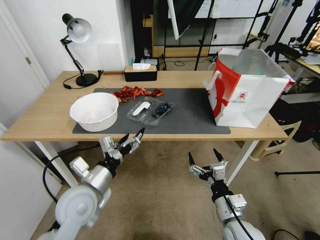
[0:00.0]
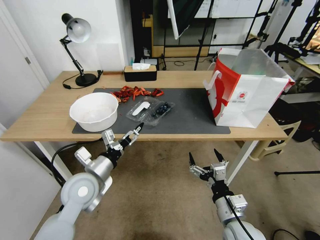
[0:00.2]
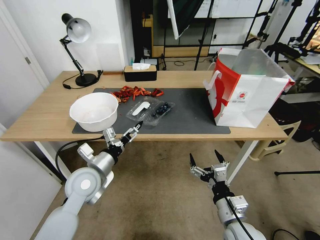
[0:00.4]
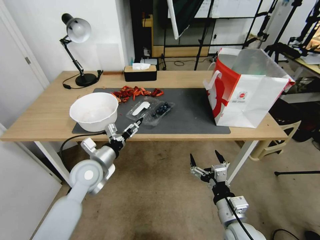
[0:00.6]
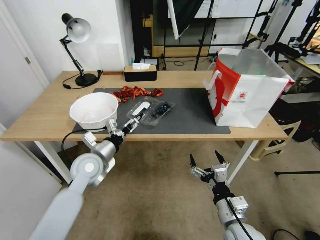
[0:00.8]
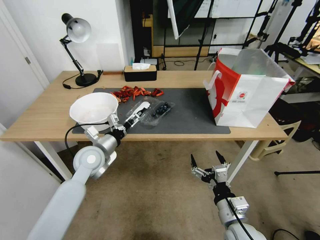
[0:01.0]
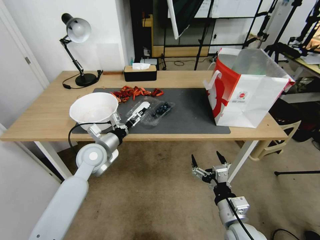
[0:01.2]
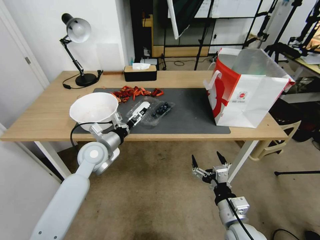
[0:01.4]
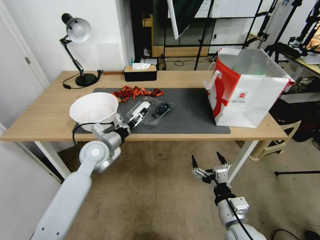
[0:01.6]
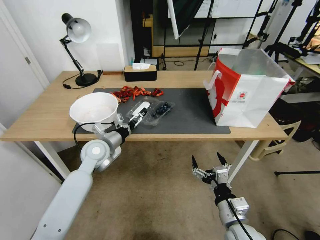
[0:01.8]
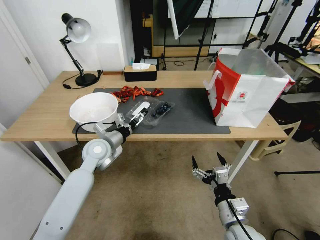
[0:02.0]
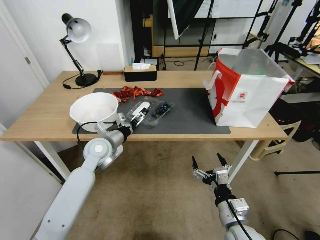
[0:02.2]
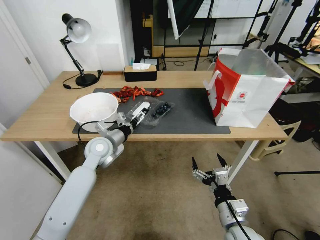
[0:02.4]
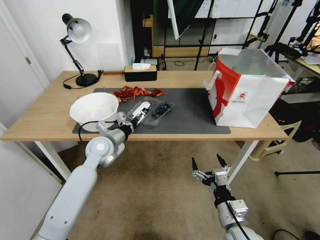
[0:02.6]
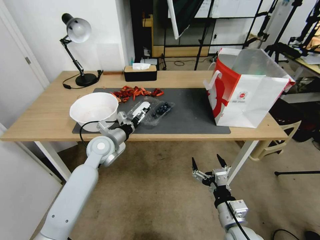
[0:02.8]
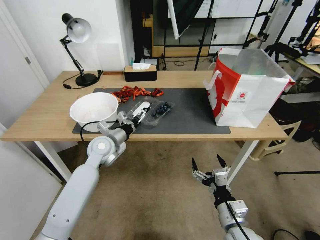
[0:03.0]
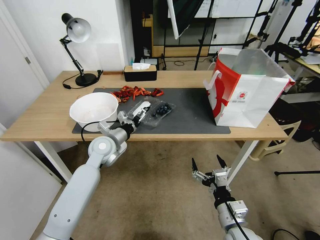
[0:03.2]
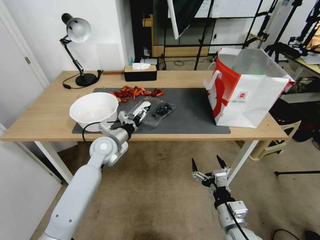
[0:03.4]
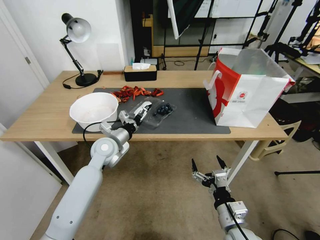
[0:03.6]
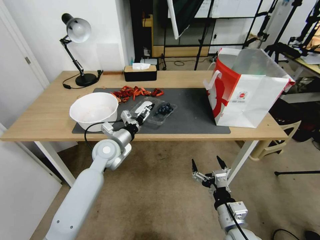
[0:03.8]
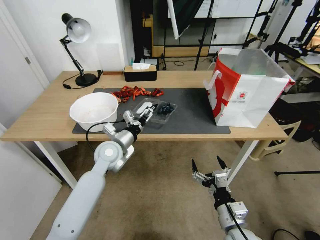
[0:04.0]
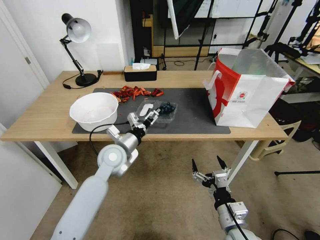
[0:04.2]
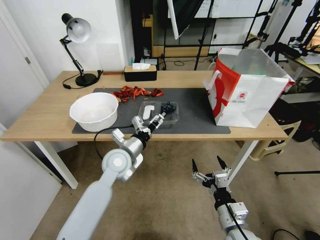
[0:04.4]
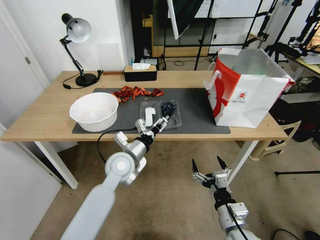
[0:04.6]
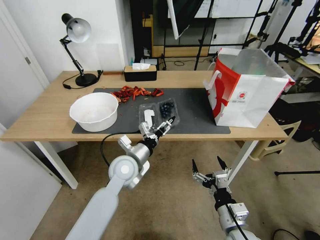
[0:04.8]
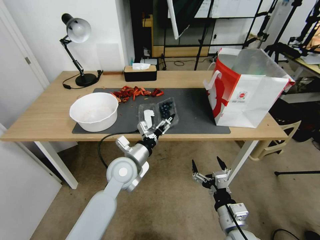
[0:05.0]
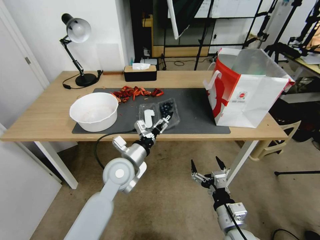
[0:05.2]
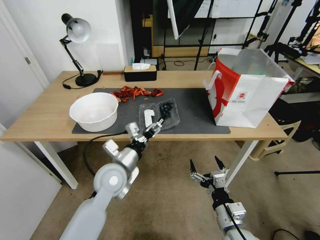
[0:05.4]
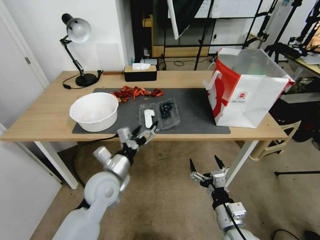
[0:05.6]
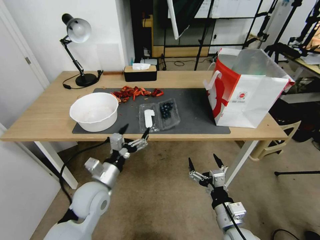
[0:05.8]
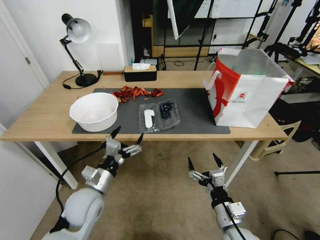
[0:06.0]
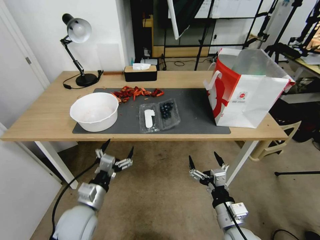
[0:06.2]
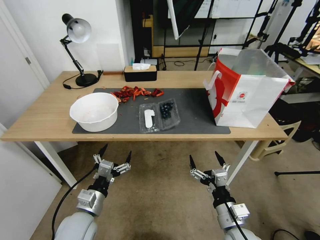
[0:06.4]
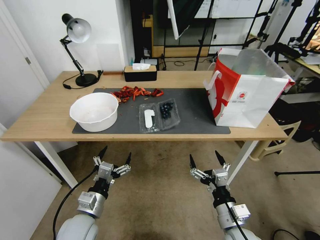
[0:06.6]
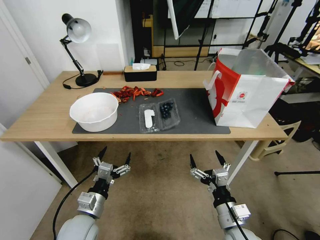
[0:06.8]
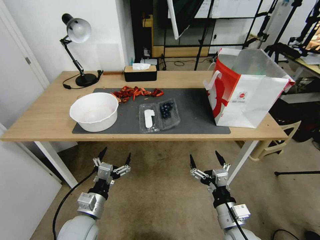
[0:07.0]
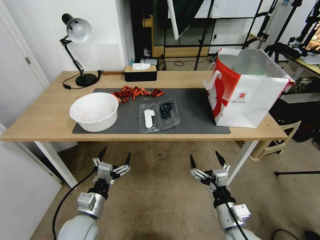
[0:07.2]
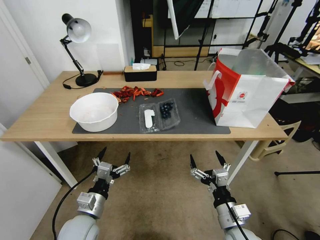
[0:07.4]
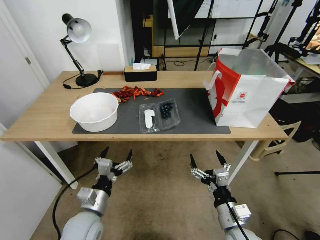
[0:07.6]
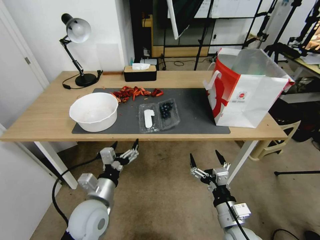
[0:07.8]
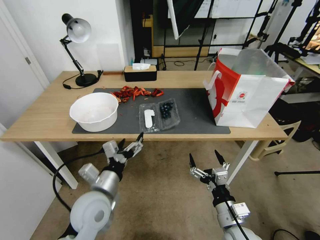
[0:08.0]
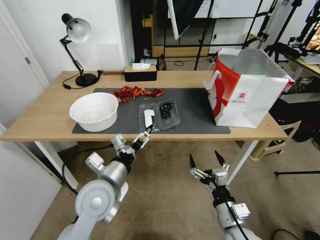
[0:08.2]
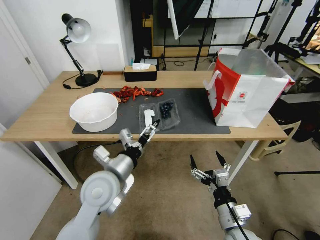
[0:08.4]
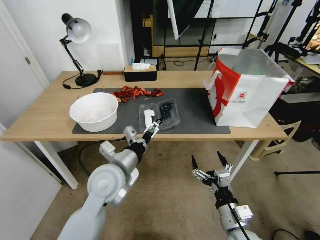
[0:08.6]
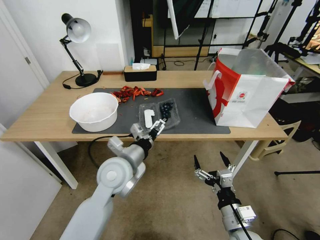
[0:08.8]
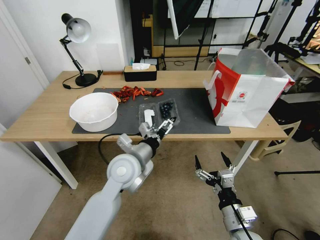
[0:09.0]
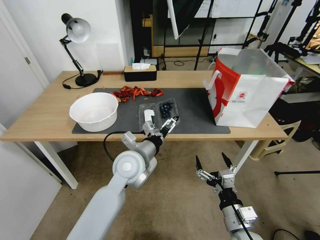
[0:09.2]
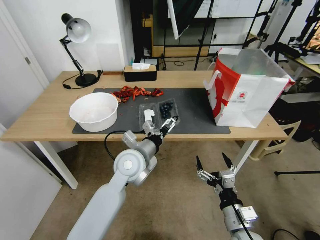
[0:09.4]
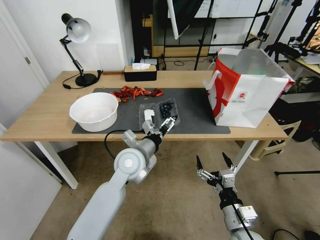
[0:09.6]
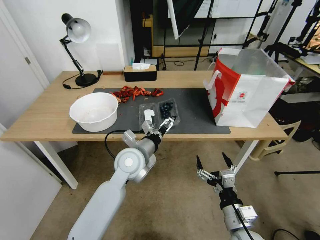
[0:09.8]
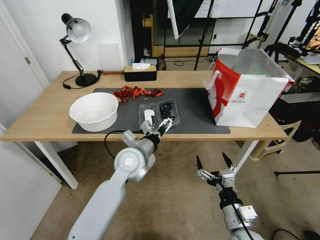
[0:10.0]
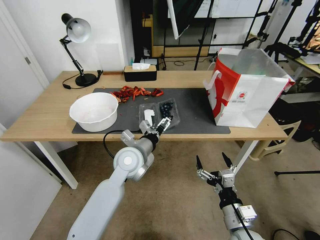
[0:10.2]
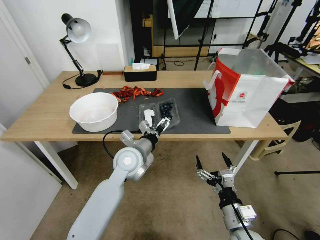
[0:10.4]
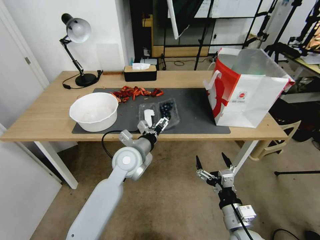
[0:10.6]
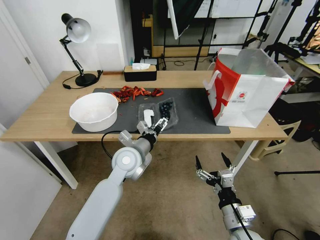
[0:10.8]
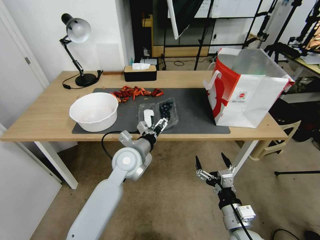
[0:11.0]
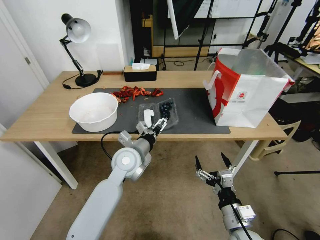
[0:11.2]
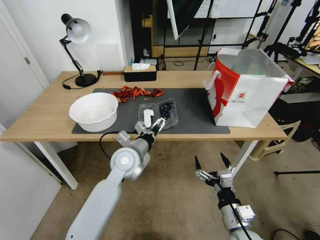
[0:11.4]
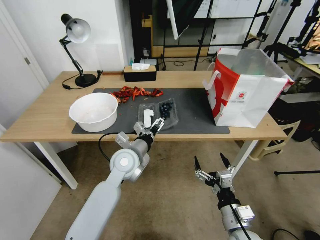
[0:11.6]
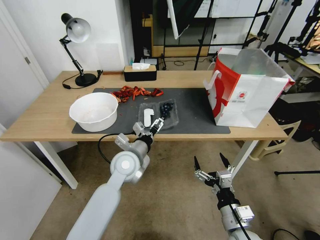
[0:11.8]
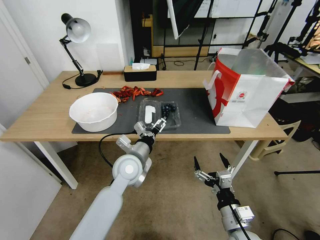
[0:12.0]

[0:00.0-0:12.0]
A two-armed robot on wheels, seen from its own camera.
Task of the whole recording: Close the takeout container lid, then place the container into the takeout bag.
0:00.0 to 0:01.6: The left gripper goes some 15 cm forward.
0:01.6 to 0:03.0: There are only small adjustments of the grippers.
0:03.0 to 0:04.4: The left gripper goes roughly 10 cm to the right and backward.
0:04.4 to 0:06.0: The left gripper is displaced backward and to the left by some 15 cm.
0:06.0 to 0:07.6: The left gripper changes place by approximately 5 cm.
0:07.6 to 0:09.0: The left gripper is displaced upward, forward and to the right by some 20 cm.
0:09.0 to 0:10.4: The left gripper moves some 5 cm.
0:10.4 to 0:12.0: There are only small adjustments of the grippers.

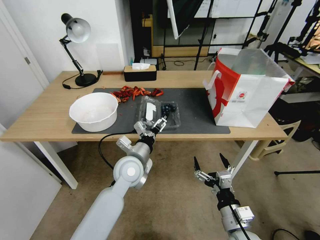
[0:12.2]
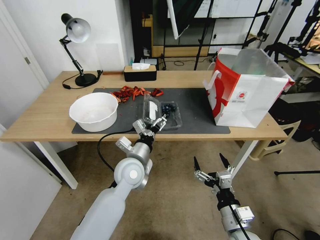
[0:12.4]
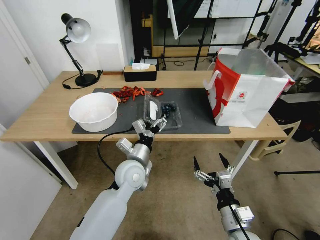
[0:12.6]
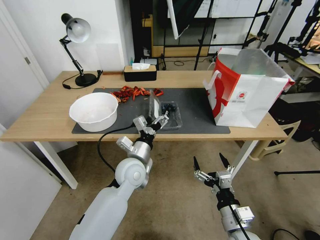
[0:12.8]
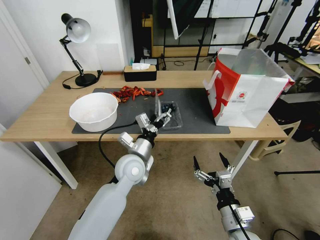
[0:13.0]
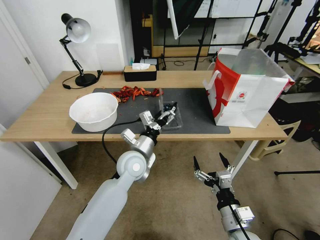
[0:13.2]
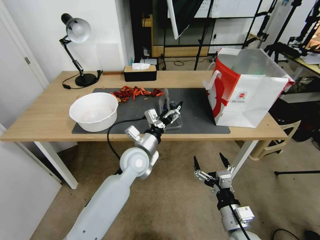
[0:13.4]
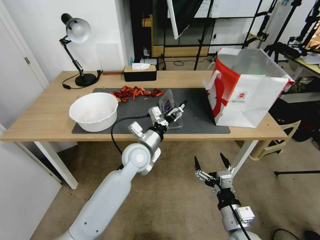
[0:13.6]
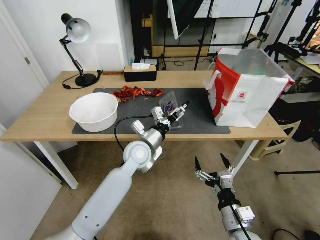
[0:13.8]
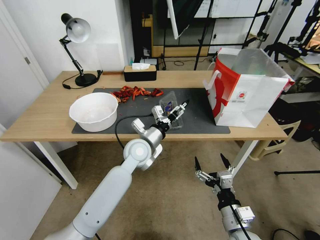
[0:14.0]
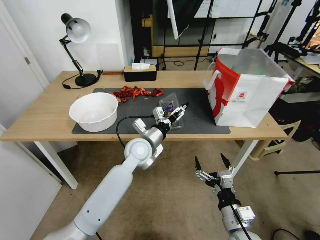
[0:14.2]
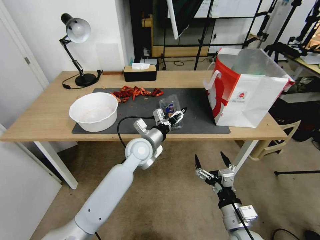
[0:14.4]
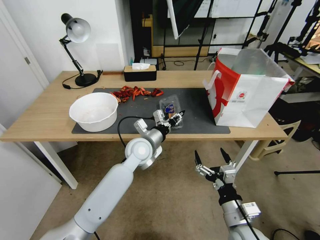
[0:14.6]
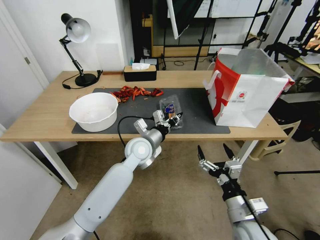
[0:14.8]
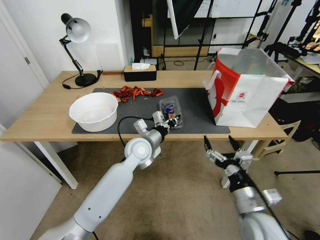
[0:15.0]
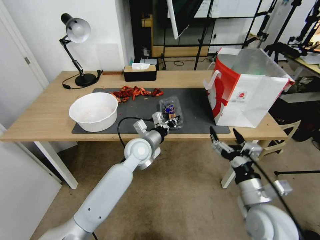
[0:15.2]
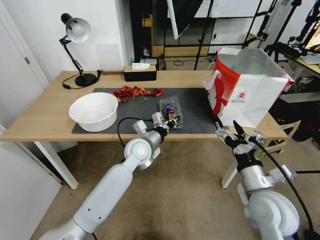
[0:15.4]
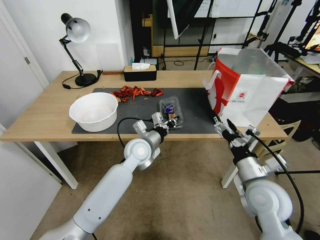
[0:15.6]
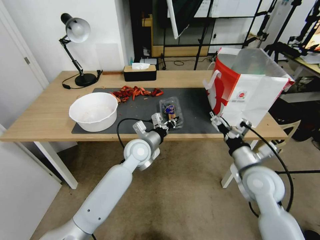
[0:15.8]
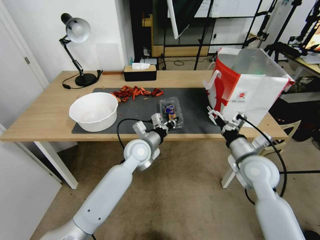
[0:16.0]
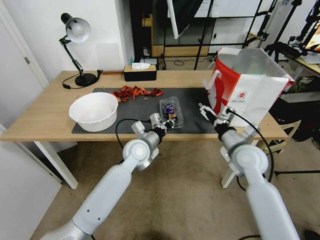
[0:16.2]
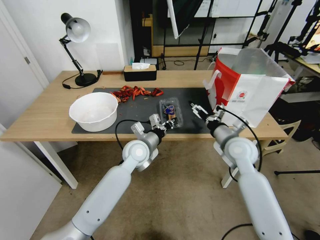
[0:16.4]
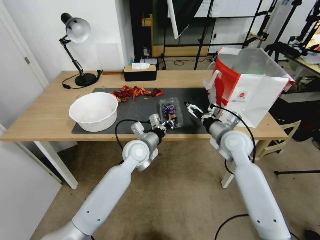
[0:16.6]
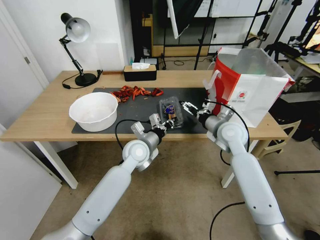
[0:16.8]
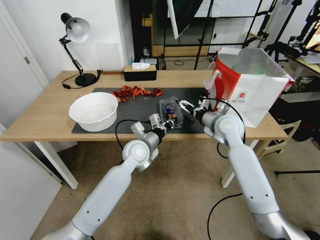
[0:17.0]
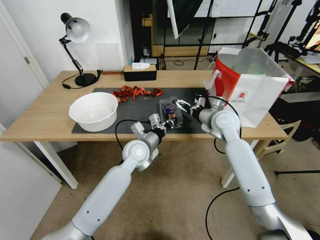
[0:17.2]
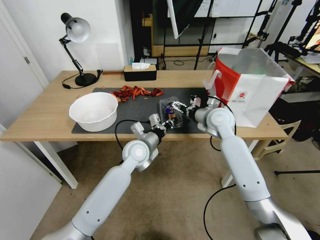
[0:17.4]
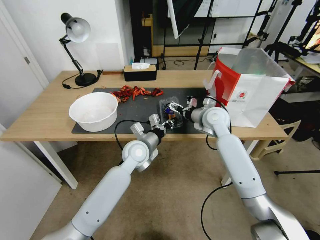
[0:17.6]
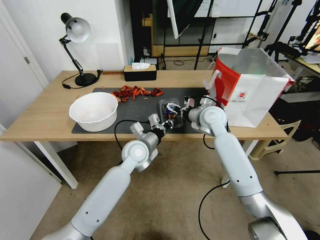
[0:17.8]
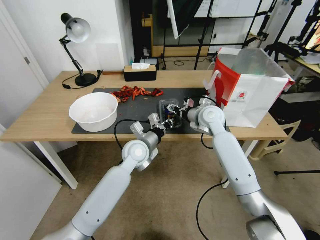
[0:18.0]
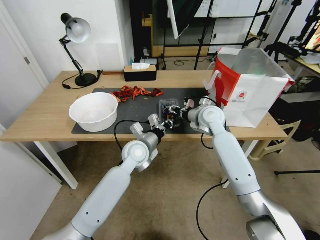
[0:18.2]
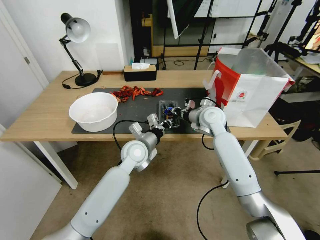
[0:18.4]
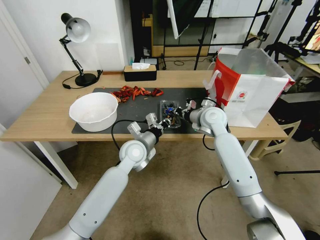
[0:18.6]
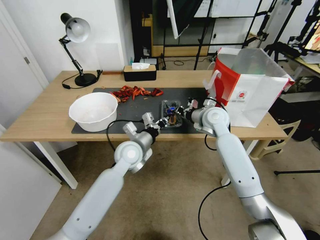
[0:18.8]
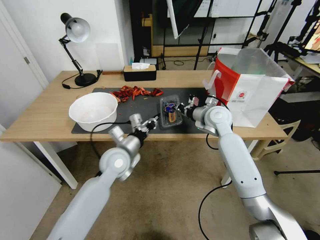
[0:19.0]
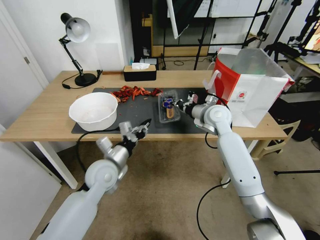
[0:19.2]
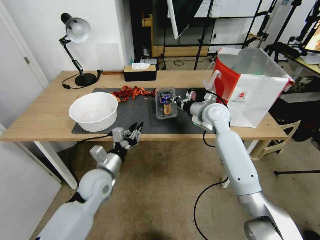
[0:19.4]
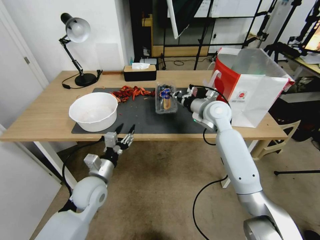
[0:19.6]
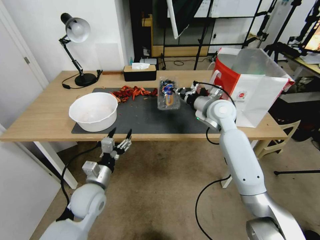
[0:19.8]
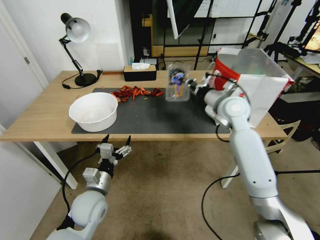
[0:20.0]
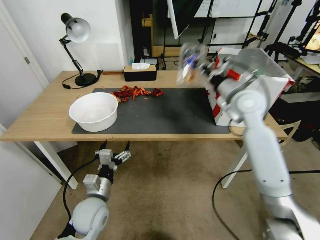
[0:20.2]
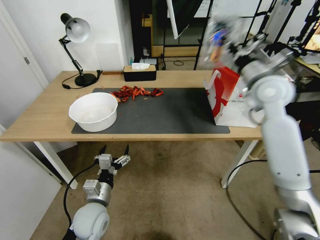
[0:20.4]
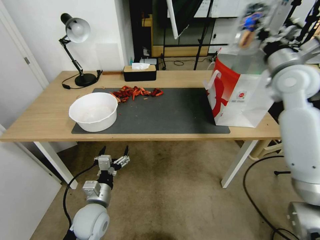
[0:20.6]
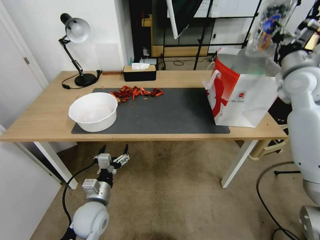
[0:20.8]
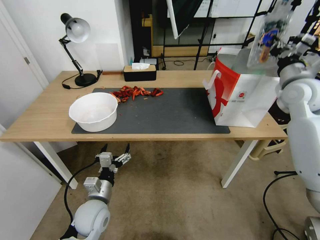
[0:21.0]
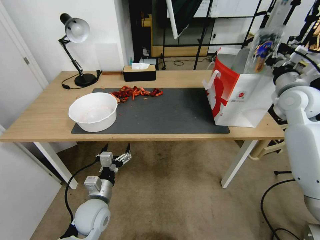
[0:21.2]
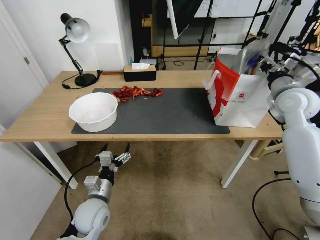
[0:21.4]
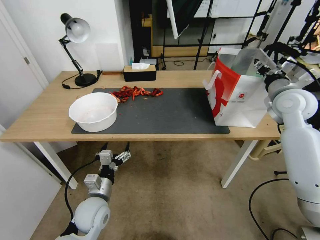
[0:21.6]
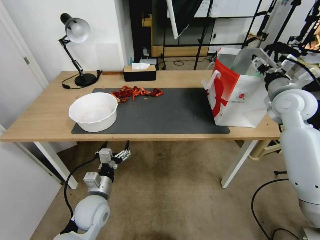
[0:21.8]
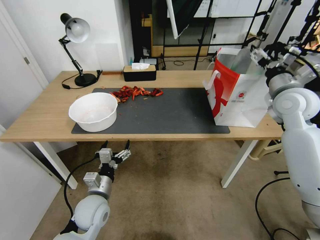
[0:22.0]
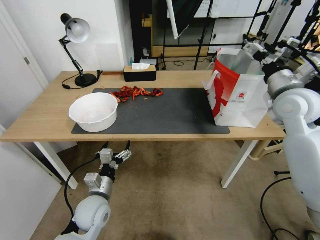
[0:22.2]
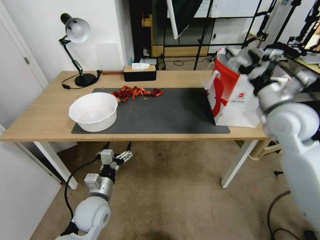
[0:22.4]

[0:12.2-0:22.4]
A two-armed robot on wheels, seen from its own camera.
Task of the whole recording: Close the takeout container lid, then place the container into the takeout bag.
0:12.2 to 0:13.6: The left gripper ends up approximately 5 cm from where it was.
0:13.6 to 0:15.2: The right gripper is displaced upward by approximately 10 cm. The left gripper closes its fingers.
0:15.2 to 0:16.6: The right gripper moves forward, roughly 20 cm.
0:16.6 to 0:18.0: The right gripper heads forward and to the left, covering approximately 10 cm.
0:18.0 to 0:19.4: The right gripper closes up. Meanwhile the left gripper shifts roughly 15 cm to the left and backward.
0:19.4 to 0:21.0: The left gripper travels backward and downward by approximately 10 cm, and opens up, while the right gripper shifts approximately 25 cm to the right and upward.
0:21.0 to 0:22.4: The right gripper is displaced backward and to the left by approximately 10 cm, and opens up.
